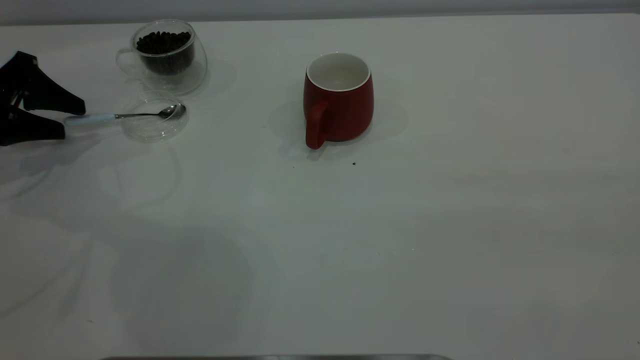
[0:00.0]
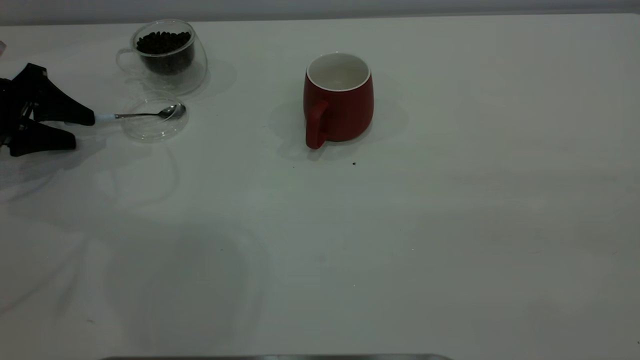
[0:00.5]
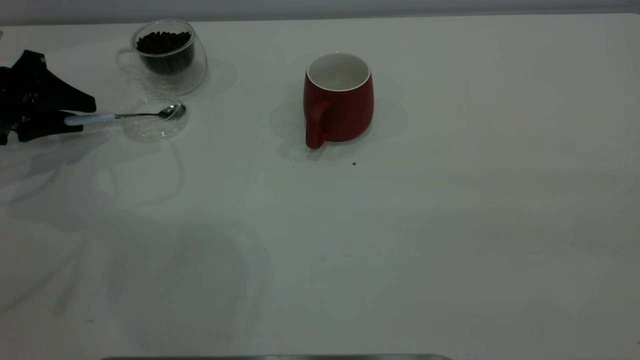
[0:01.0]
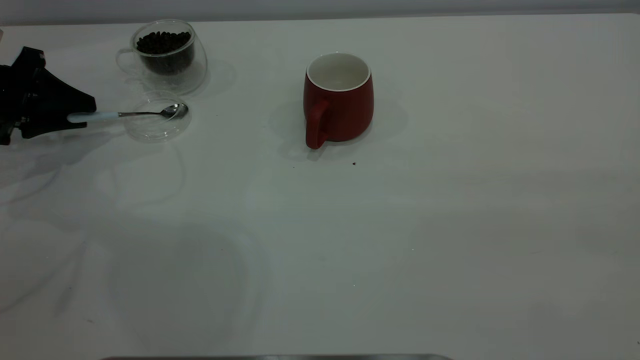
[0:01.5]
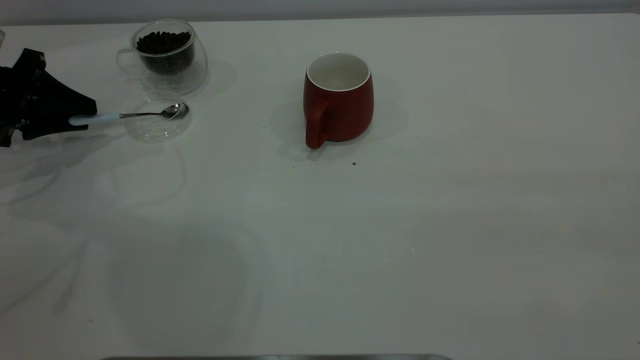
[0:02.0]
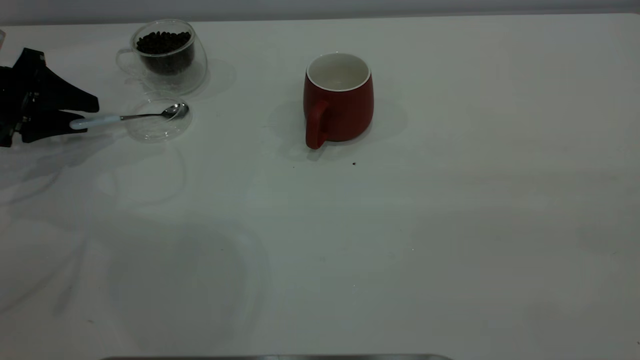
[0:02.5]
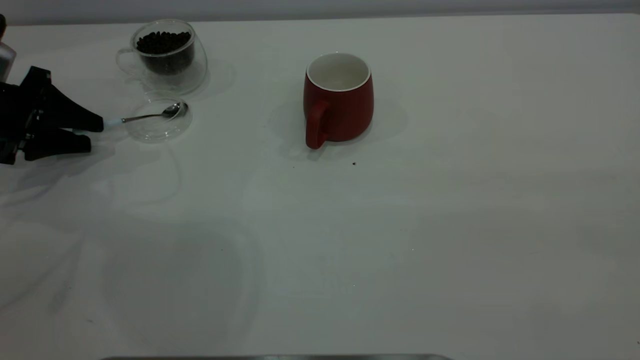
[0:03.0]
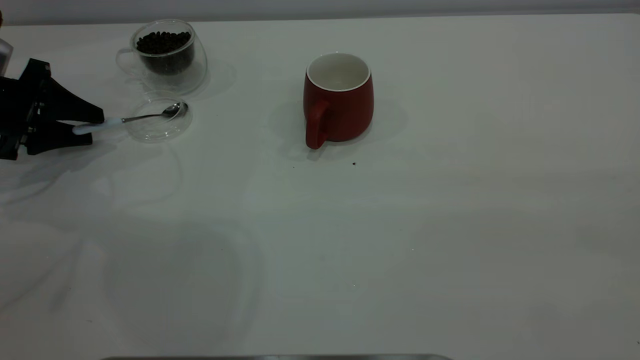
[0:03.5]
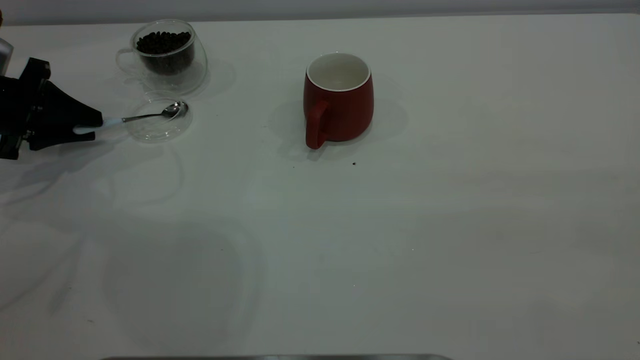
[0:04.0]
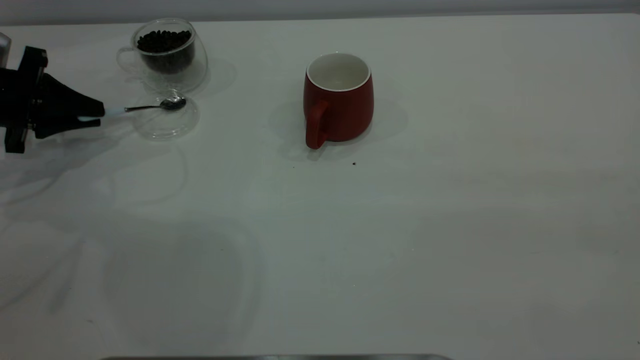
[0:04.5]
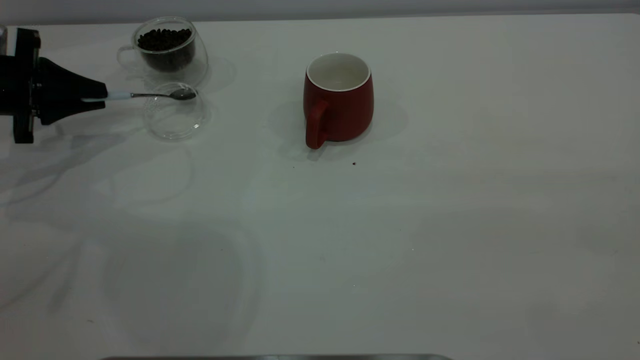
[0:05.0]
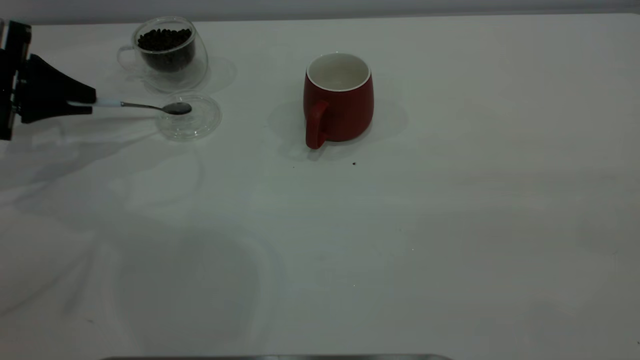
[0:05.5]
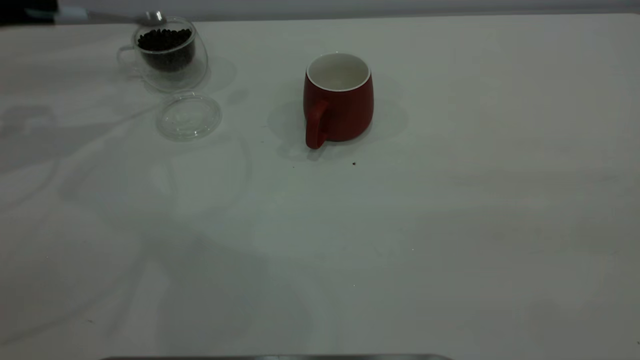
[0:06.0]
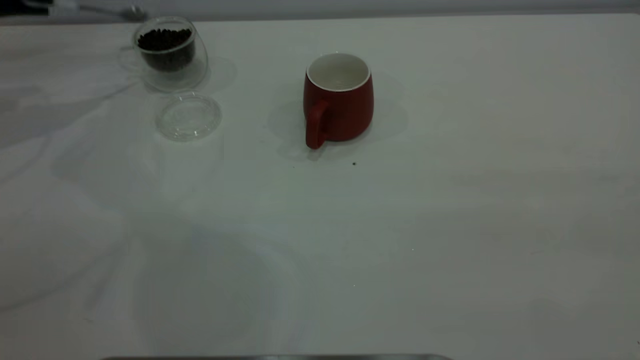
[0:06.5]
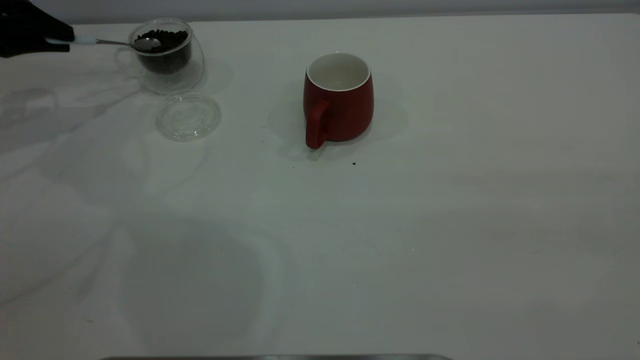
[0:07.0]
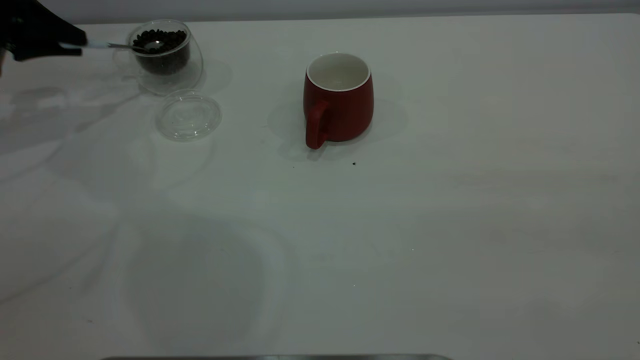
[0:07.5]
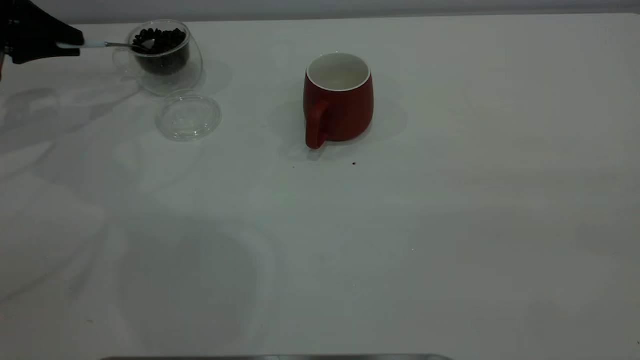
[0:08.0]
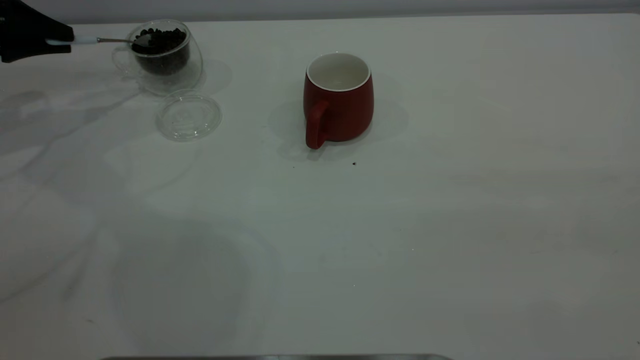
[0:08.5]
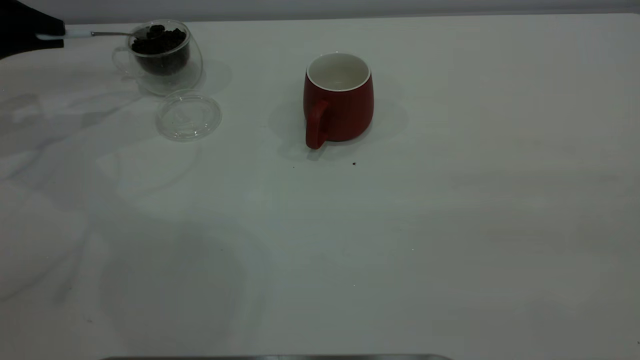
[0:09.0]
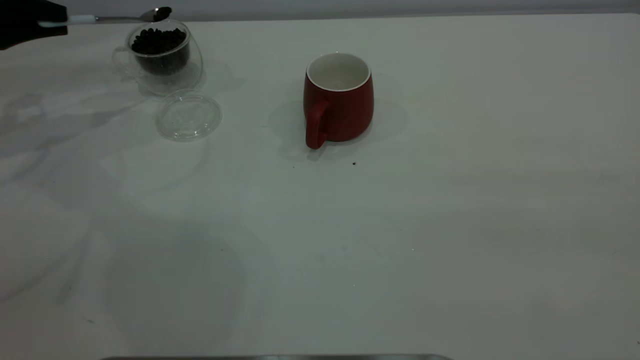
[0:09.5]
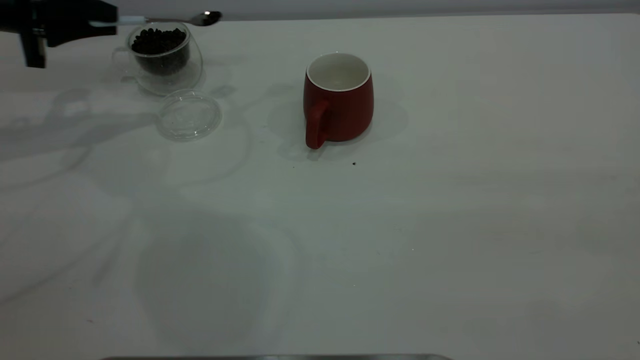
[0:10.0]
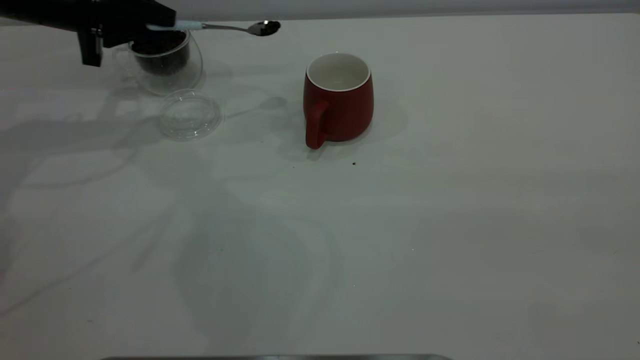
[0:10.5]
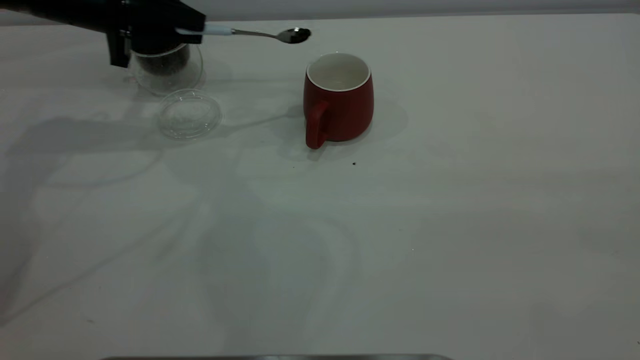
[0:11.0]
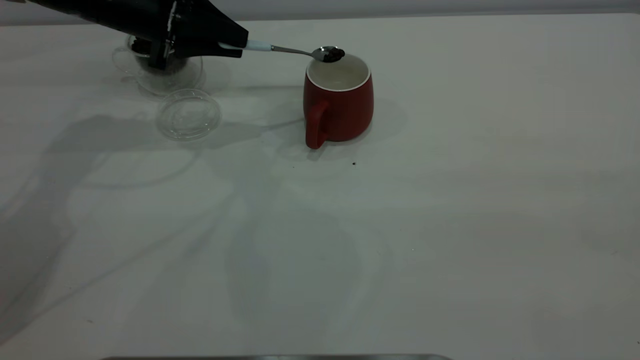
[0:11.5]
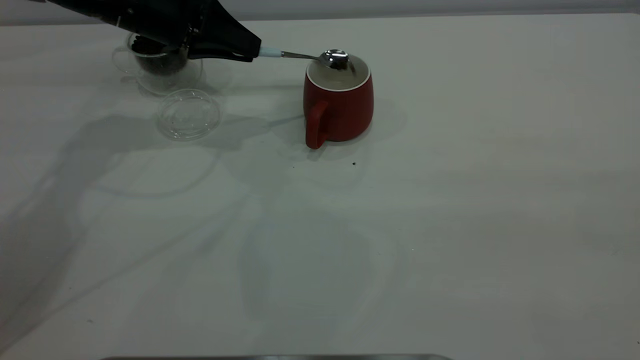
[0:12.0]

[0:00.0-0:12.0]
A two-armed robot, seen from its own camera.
Task of the whole recording: the right gripper place the red cup in the center of the table, the left gripper take the blue spoon from the cup lid and scoop out the coffee beans from the coffee cup and put them into the red cup, the left gripper put the spoon back into the cup lid.
Step, 0:00.0 to 0:05.5: Pick up the spoon.
0:00.0 to 0:02.0: The left gripper closes.
0:02.0 to 0:04.0: The grippers move only a little.
0:04.0 to 0:06.0: The left gripper shifts about 15 cm upward.
0:06.0 to 0:08.0: The left gripper shifts about 5 cm downward.
0:08.0 to 0:10.0: The left gripper goes approximately 5 cm to the right.
0:10.0 to 0:12.0: The left gripper travels to the right by some 15 cm.

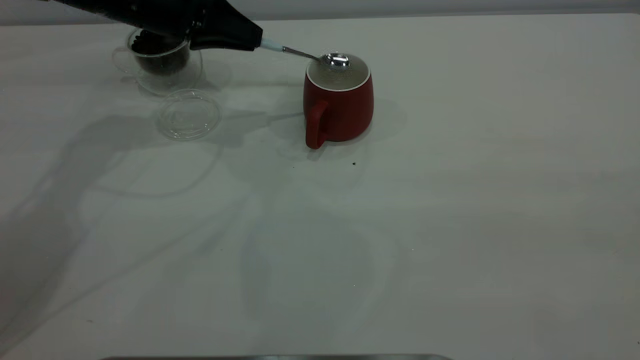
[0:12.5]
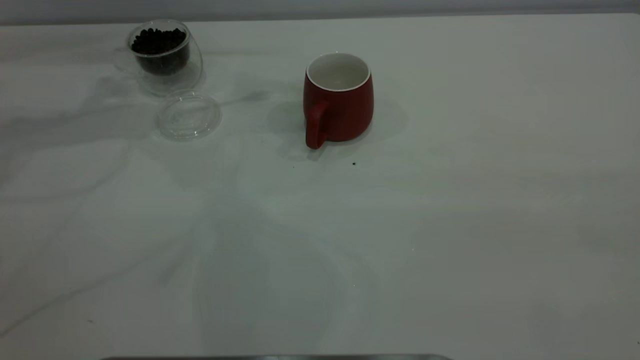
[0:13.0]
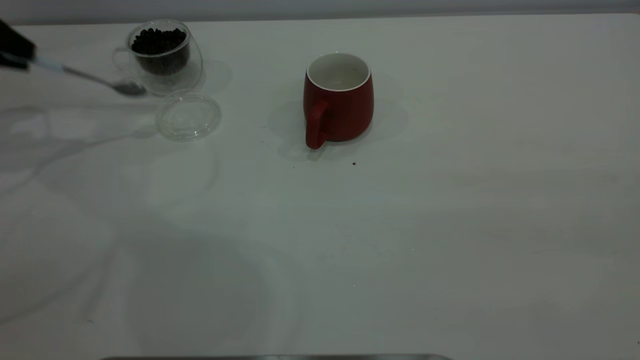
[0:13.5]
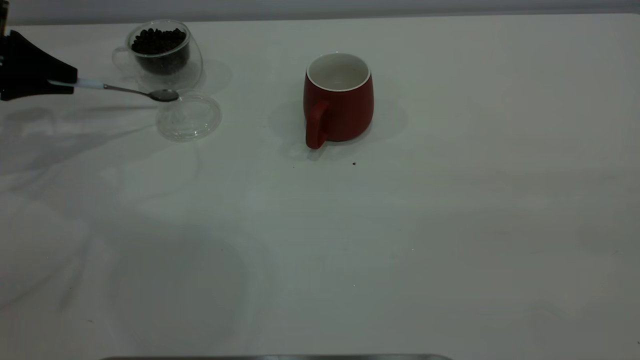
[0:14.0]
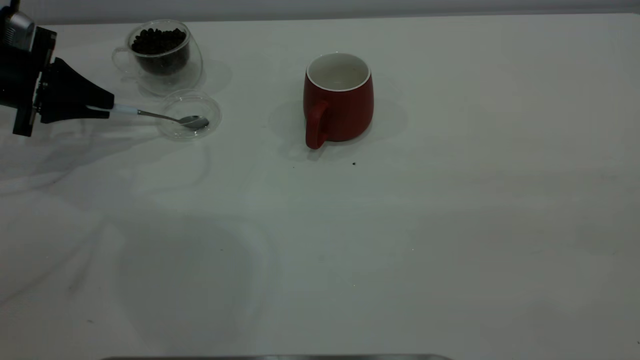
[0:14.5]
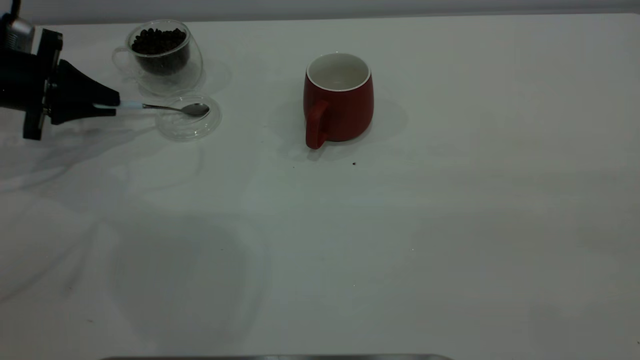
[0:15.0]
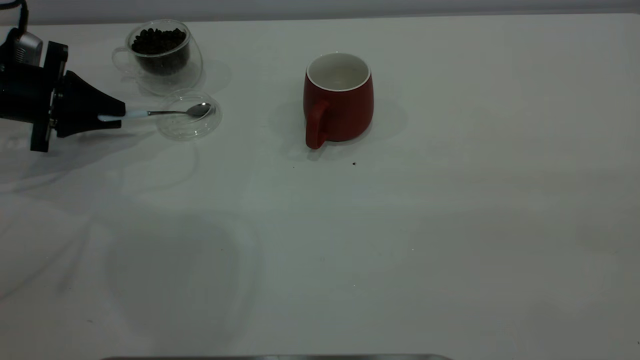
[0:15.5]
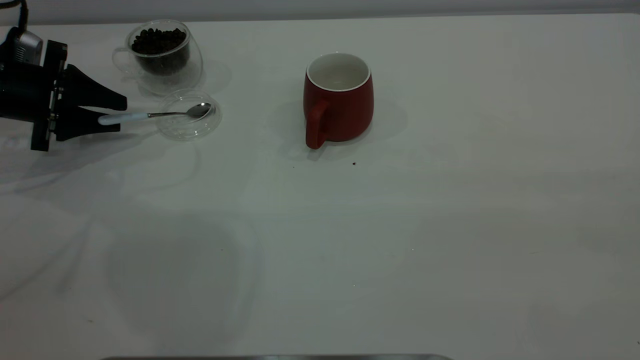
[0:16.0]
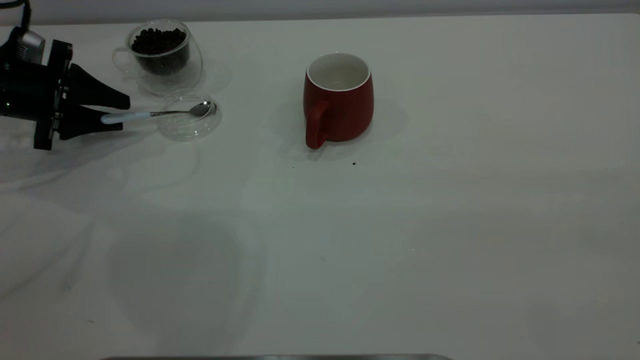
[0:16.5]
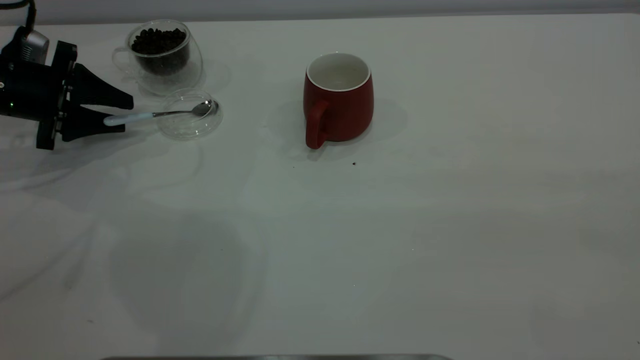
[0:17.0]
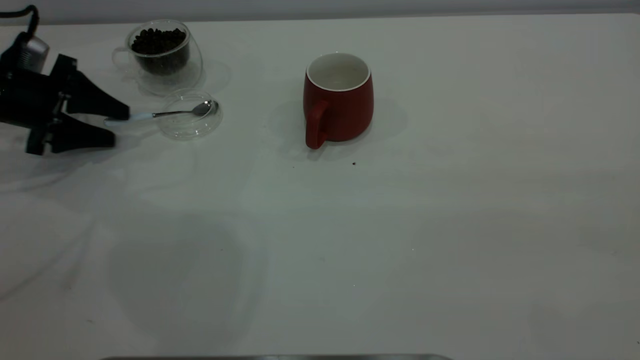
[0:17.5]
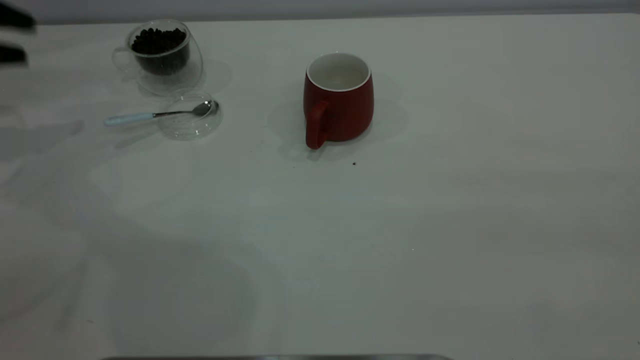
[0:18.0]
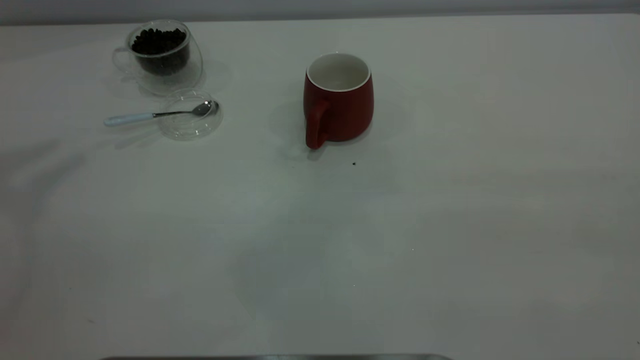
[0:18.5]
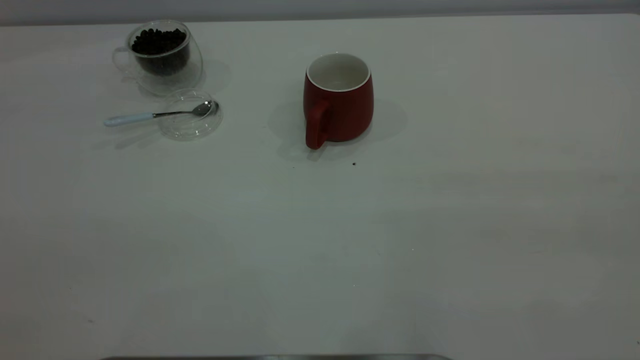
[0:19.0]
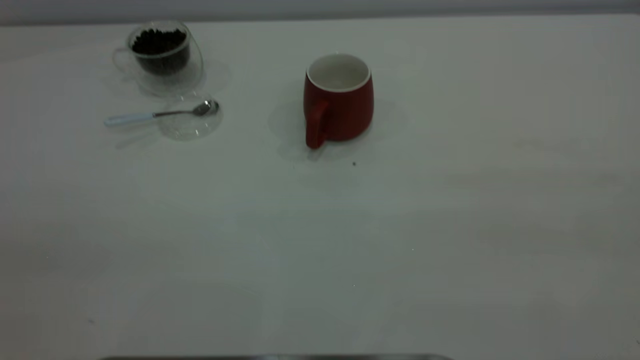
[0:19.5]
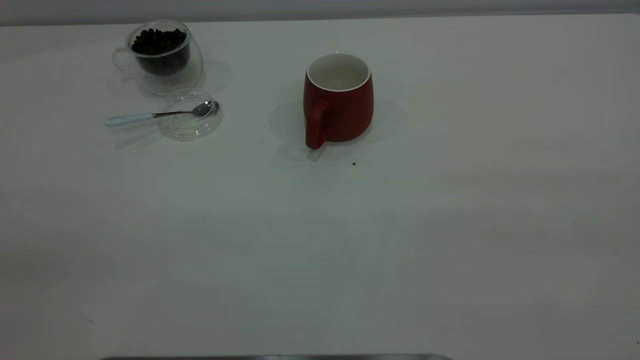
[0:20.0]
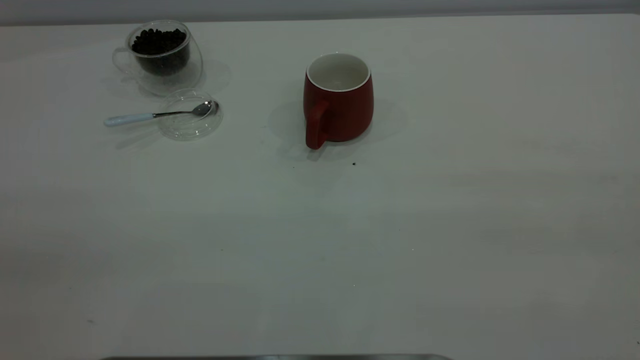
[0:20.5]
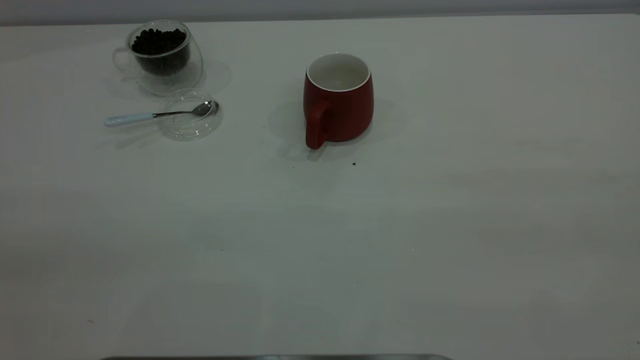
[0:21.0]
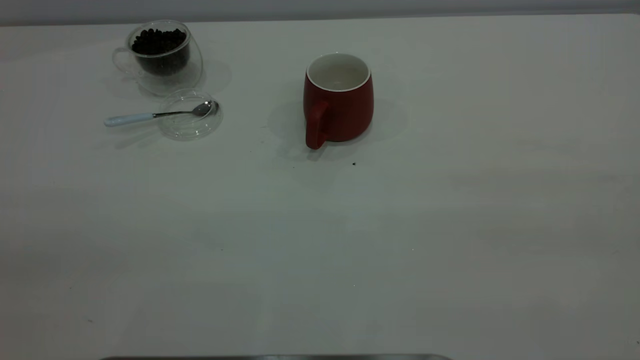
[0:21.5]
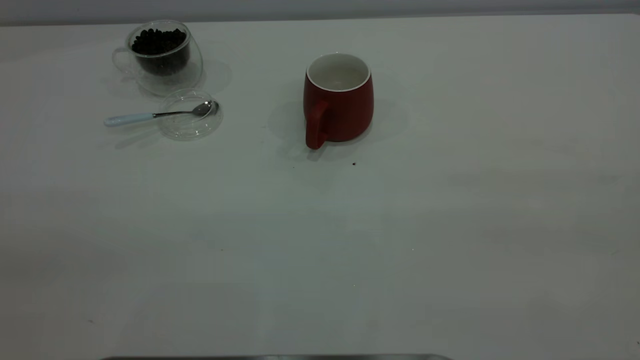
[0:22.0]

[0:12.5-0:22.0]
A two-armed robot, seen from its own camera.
Task of the whole recording: the right gripper place the red cup in the center of the table, the left gripper take the blue spoon from the cup lid and scoop out the coffee beans from the coffee cup and put them into the red cup, the left gripper put the spoon back into the cup lid.
Step, 0:13.0 to 0:17.5: Place the spoon back in its original place.
0:12.5 to 0:14.5: The left gripper heads to the left, covering some 15 cm.
0:14.5 to 0:16.5: The left gripper opens its fingers.
0:16.5 to 0:18.0: The left gripper goes roughly 15 cm upward and to the left, and opens its fingers.
0:18.0 to 0:20.0: The left gripper goes some 40 cm backward.
